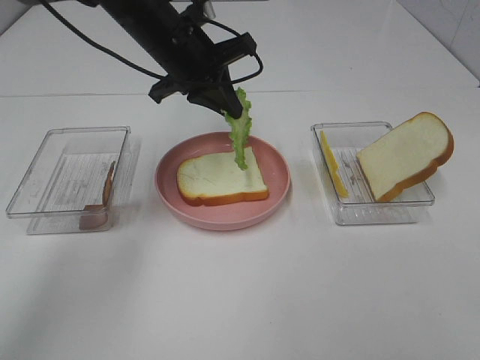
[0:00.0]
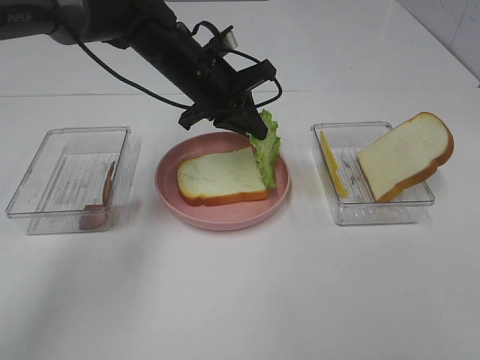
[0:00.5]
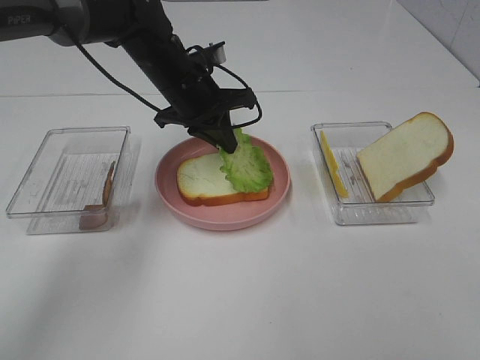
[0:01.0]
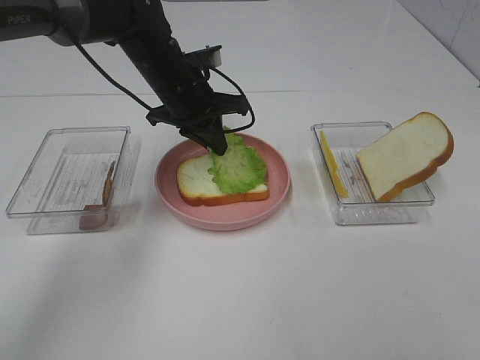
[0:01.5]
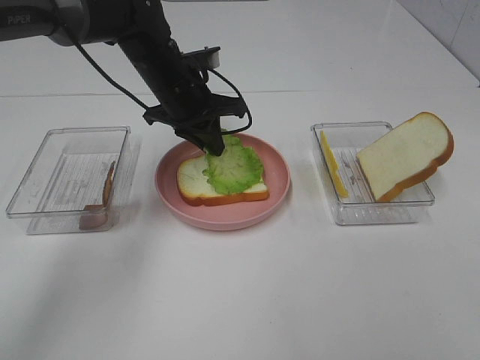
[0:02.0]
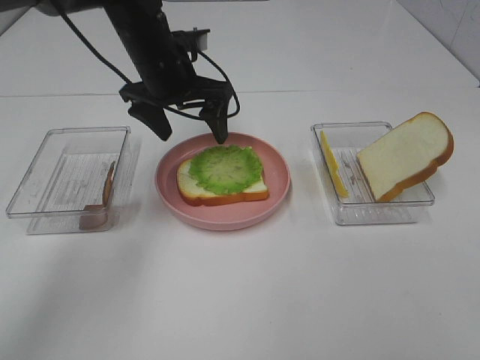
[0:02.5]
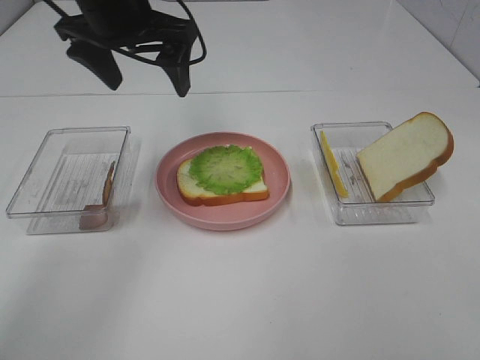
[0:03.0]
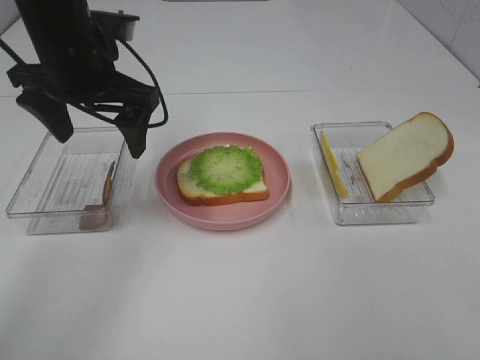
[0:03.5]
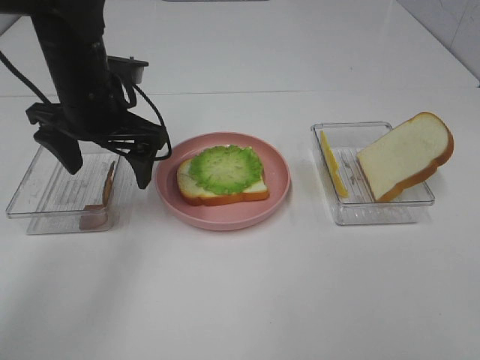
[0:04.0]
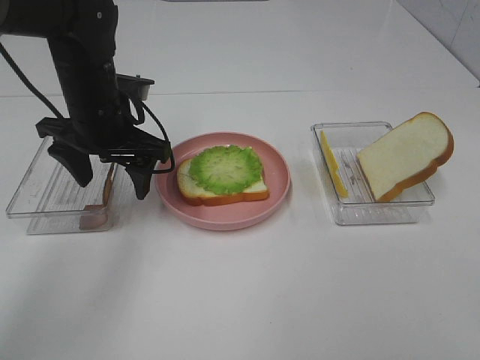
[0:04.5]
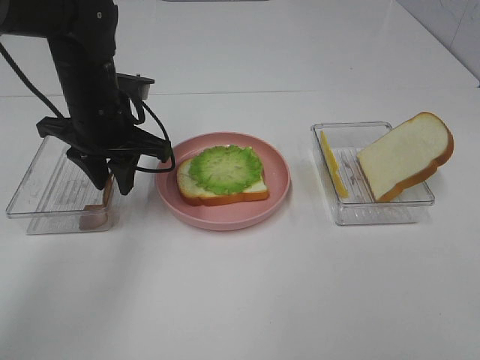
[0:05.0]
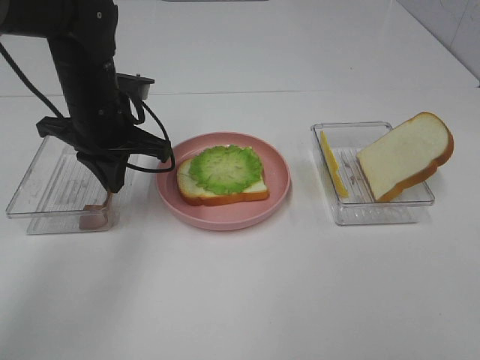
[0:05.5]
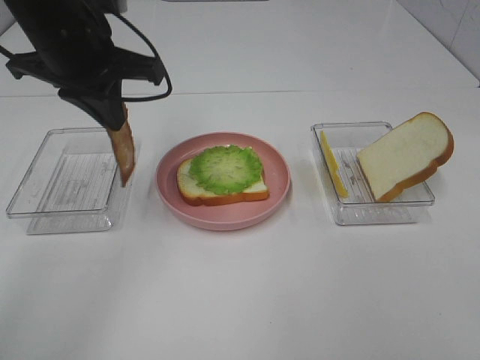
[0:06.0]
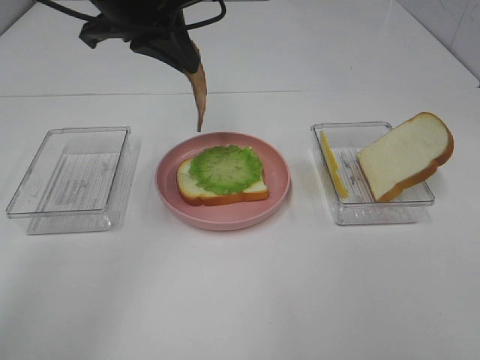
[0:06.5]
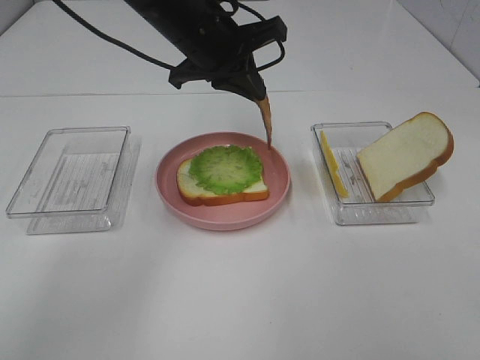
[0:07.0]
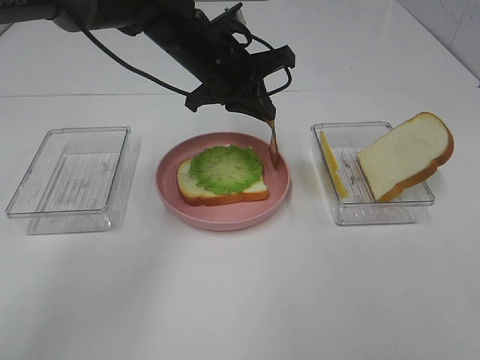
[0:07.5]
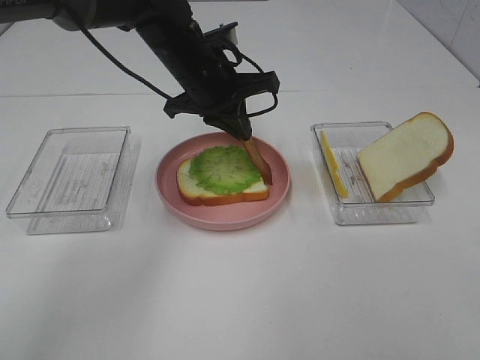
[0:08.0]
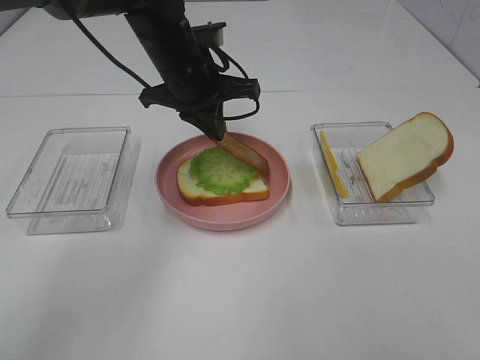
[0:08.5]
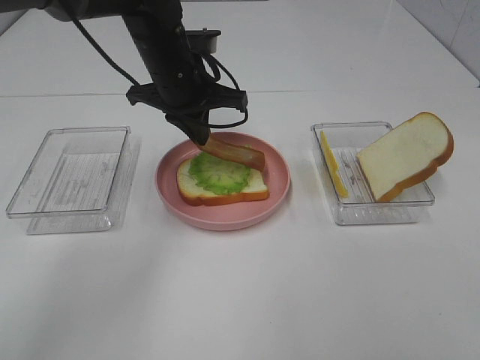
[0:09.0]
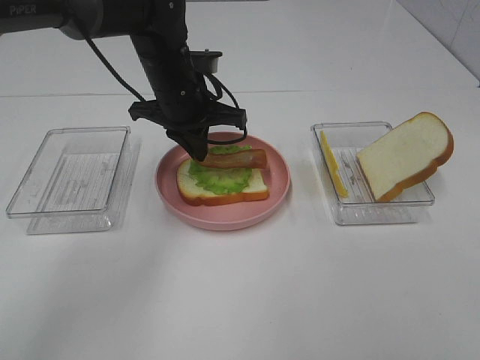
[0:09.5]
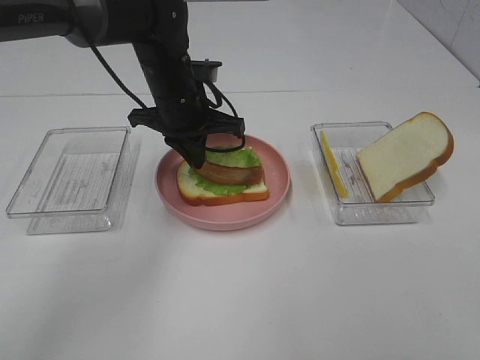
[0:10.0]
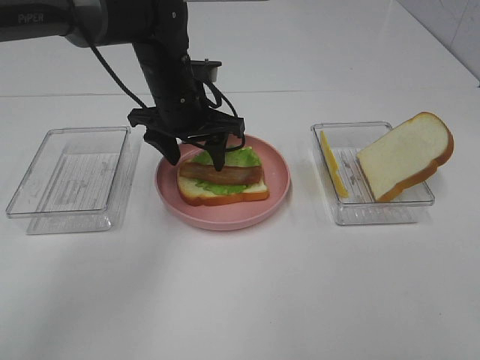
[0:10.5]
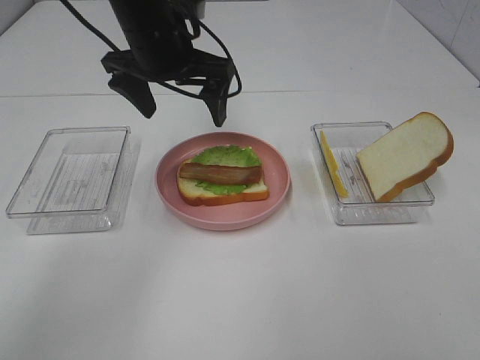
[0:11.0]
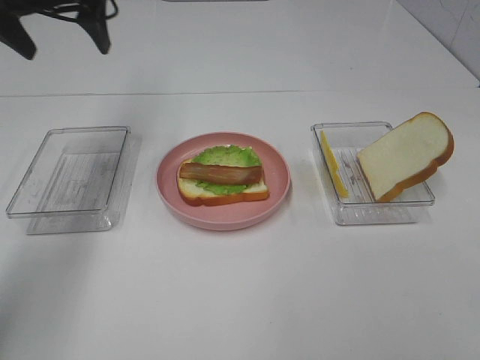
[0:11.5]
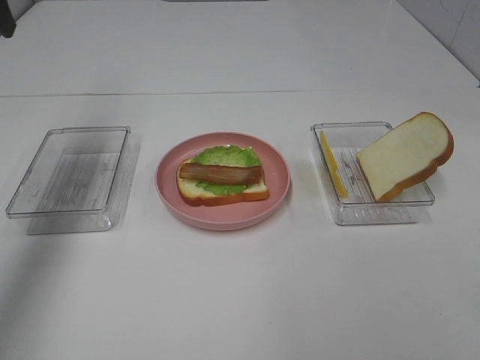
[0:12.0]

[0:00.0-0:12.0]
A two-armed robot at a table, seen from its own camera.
Task of the whole recording: Make sandwiches.
Step, 0:00.0 to 0:02.0: Left hand:Place the lettuce slice on the bread slice.
Step, 0:02.5 to 0:05.0: Left hand:grab the bacon.
Step, 0:05.5 to 0:10.5: Left hand:Place bacon on lettuce slice.
0:00.0 to 0:02.0: The left gripper travels downward by some 5 cm.
0:02.0 to 0:04.0: The left gripper travels backward and to the left by some 10 cm, travels upward and back again, approximately 15 cm each way, and opens.
0:04.0 to 0:06.0: The left gripper is displaced upward by some 10 cm, and closes.
0:06.0 to 0:08.0: The left gripper travels to the right, downward and forward by approximately 15 cm.
0:08.0 to 0:10.0: The grippers move only a little.
0:10.0 to 0:12.0: The left gripper is displaced to the left and upward by roughly 30 cm, and opens.

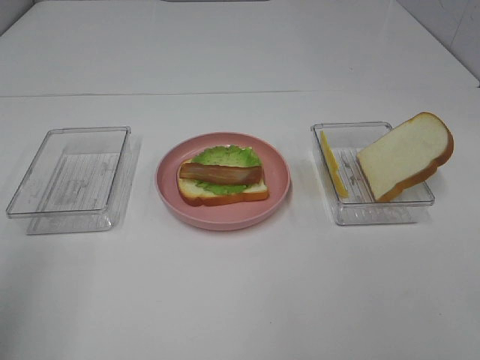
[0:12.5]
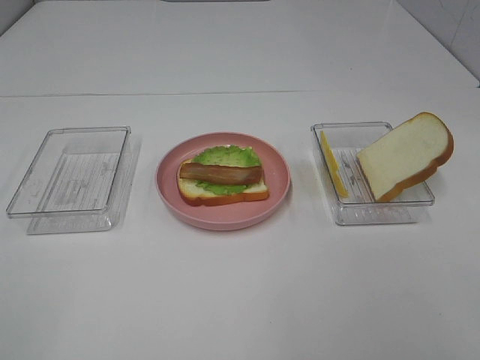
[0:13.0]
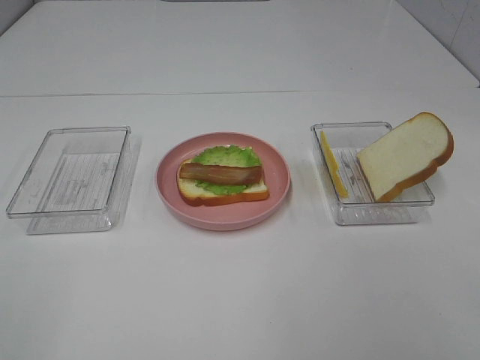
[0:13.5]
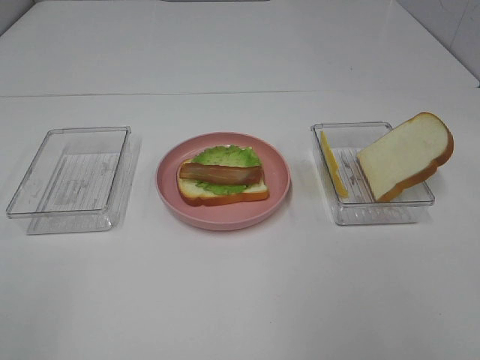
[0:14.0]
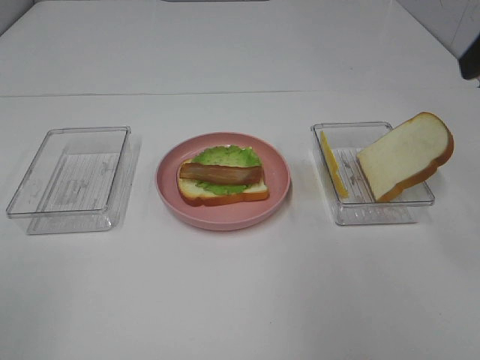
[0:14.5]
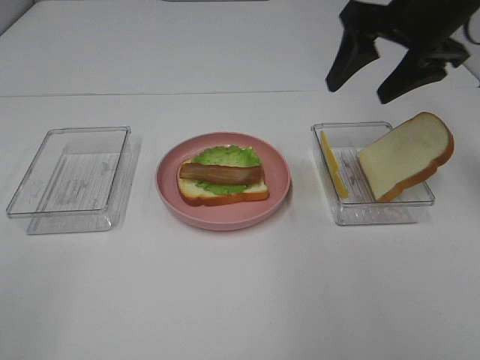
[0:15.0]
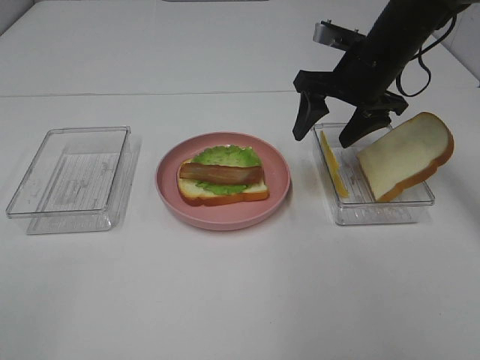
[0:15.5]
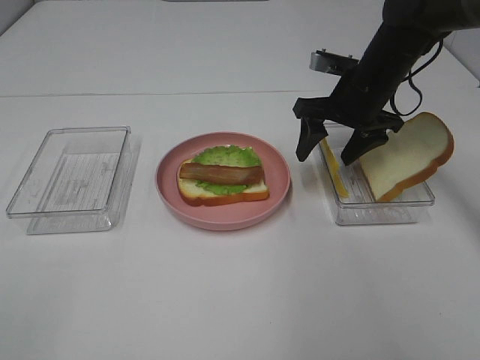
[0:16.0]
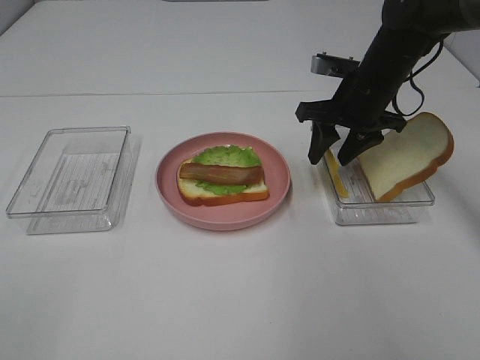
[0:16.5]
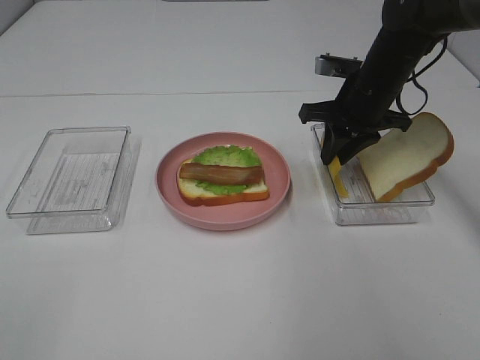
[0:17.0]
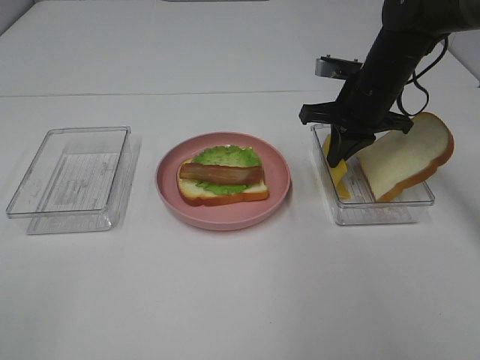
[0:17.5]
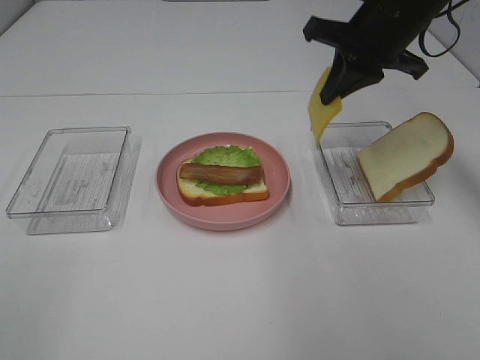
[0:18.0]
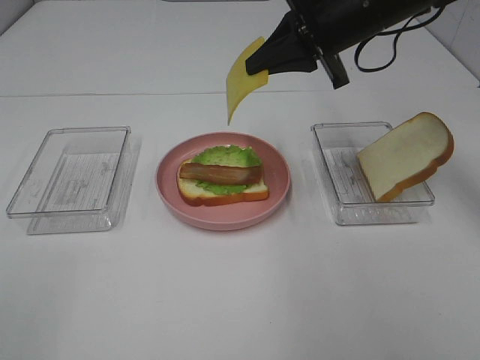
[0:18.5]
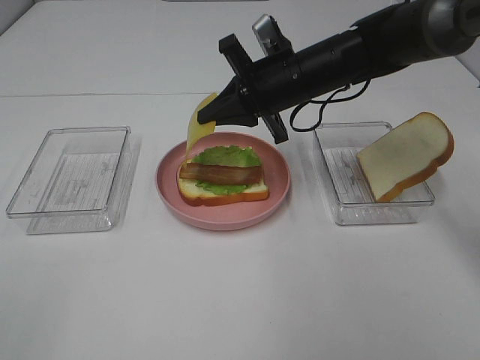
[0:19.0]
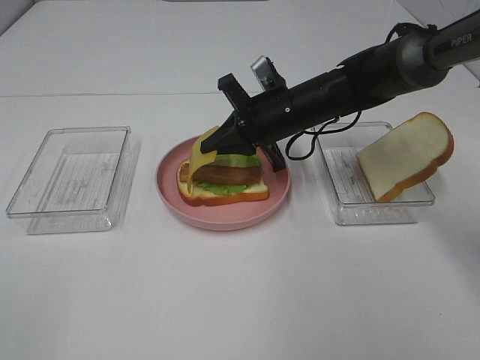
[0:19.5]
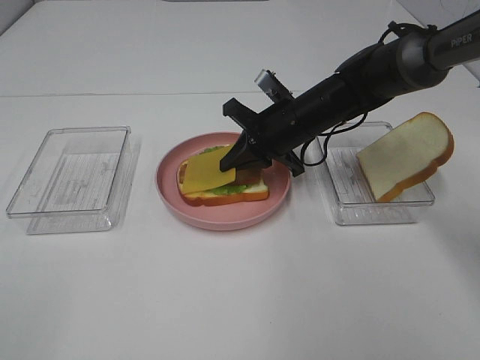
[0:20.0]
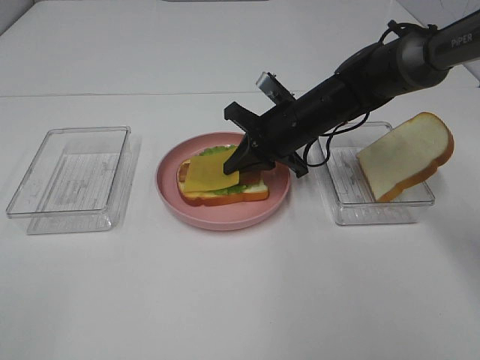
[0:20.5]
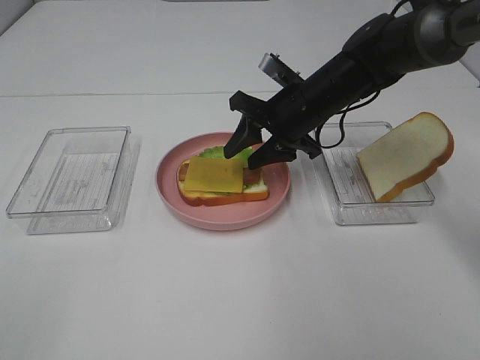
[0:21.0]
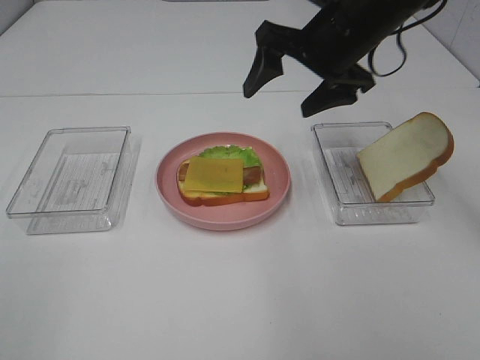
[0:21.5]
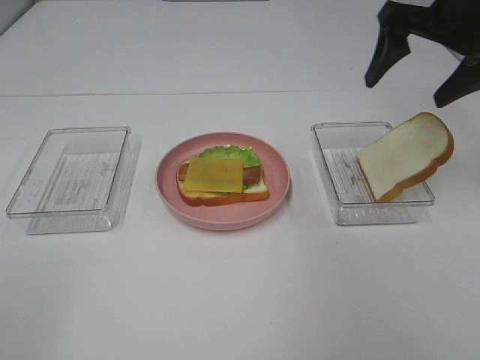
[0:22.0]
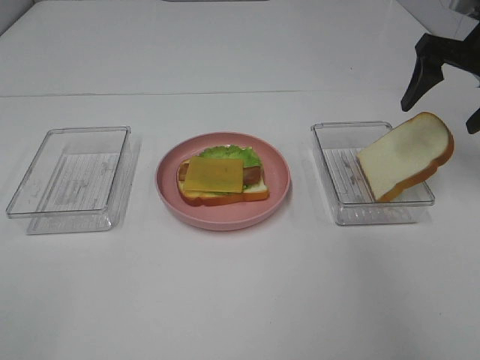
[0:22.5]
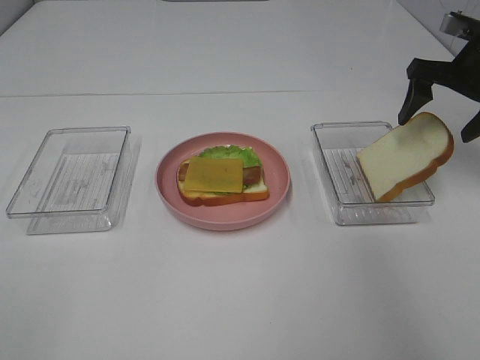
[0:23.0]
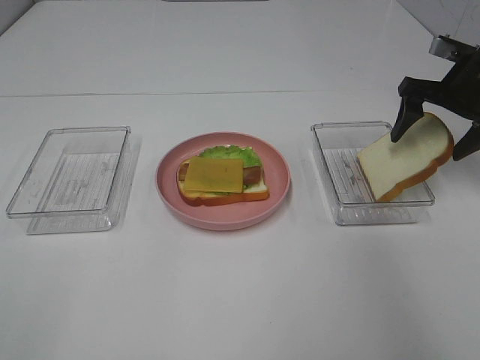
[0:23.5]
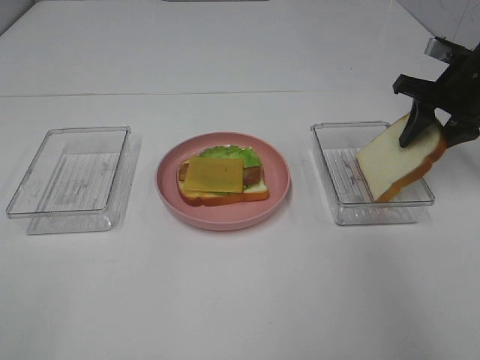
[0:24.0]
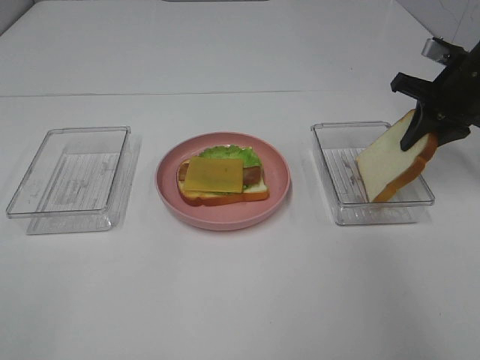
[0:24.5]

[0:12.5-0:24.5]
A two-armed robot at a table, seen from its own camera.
Task of the whole recording: Make sandwiches.
Step, 0:12.5 to 0:17.5: Right hand:grab the cheese slice.
Step, 0:18.0 to 0:21.0: Right hand:Place the cheese slice on top of the bacon.
Step, 0:21.5 to 0:24.5: Right hand:grab the bread slice.
0:14.5 to 0:16.5: The right gripper is displaced downward, forward and to the left by some 30 cm.
0:16.5 to 0:18.5: The right gripper heads upward, covering about 10 cm, and closes.
0:18.5 to 0:20.5: The right gripper shifts about 15 cm downward.
0:20.5 to 0:22.5: The right gripper moves to the right and upward, roughly 25 cm, and opens up.
0:22.5 to 0:24.5: The right gripper goes roughly 5 cm downward, and closes.

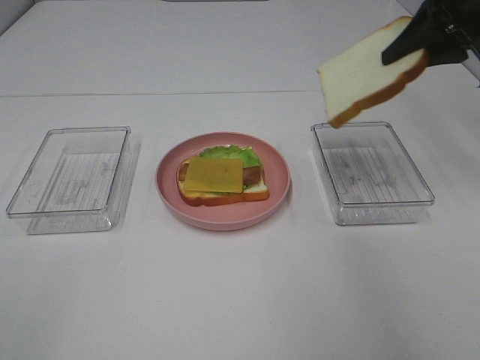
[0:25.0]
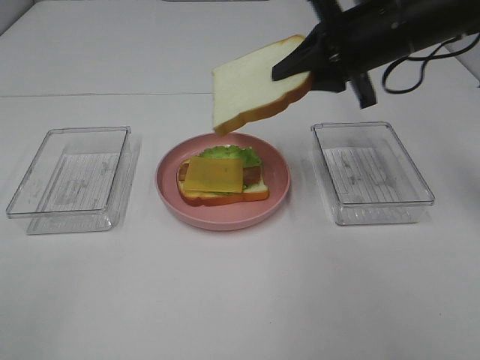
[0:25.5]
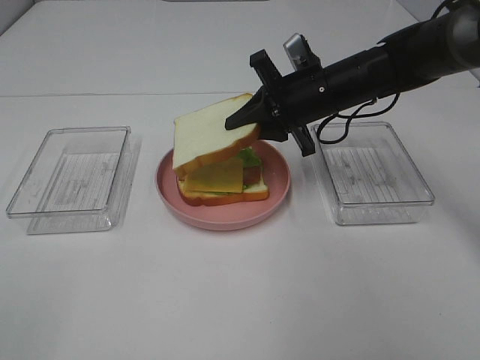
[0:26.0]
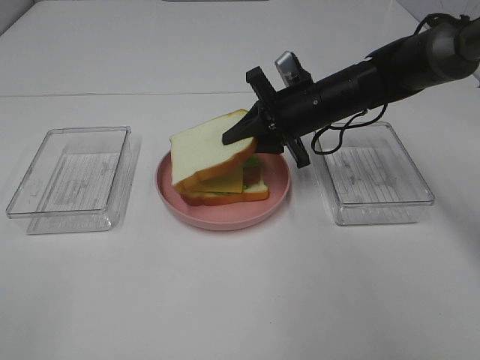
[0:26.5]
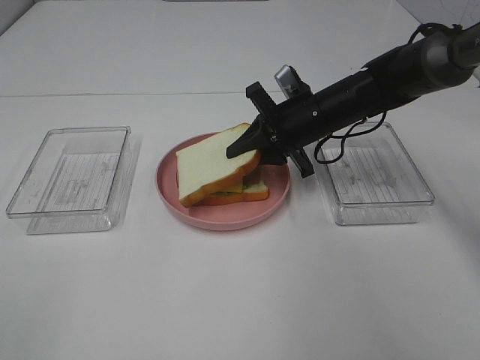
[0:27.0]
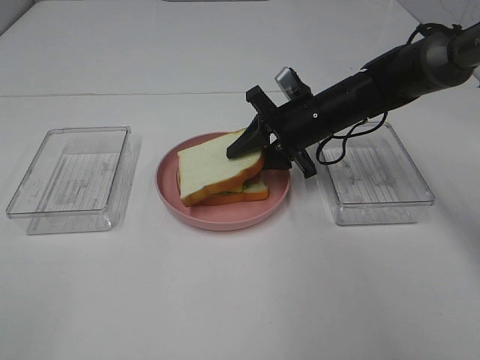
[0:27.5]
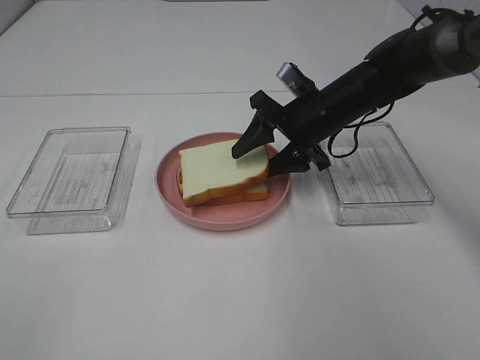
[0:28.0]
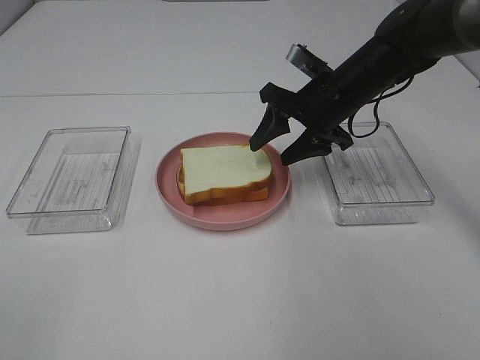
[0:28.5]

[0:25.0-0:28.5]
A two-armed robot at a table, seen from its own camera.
Task of the whole recording: Make sandwiches.
Step, 0:25.0 to 0:28.5: Right hand:place the bread slice on the cheese slice.
0:25.0 to 0:27.0: The right gripper goes some 25 cm downward and to the left.
0:27.0 to 0:28.5: The right gripper opens its fingers.
